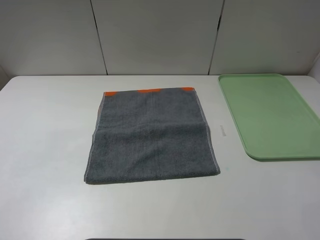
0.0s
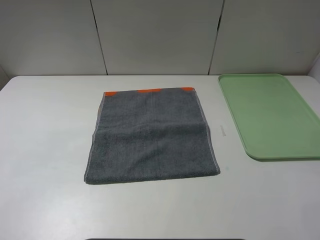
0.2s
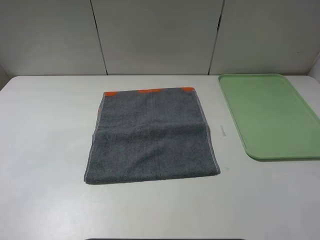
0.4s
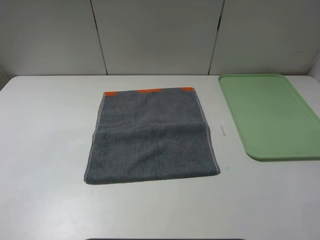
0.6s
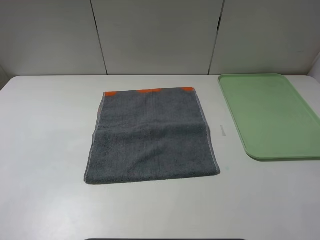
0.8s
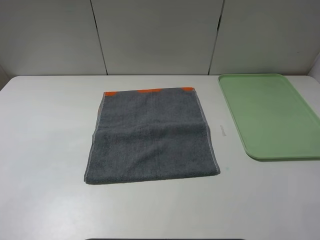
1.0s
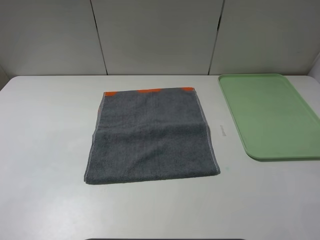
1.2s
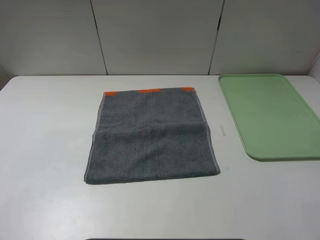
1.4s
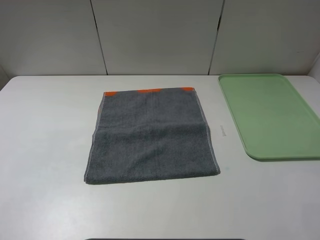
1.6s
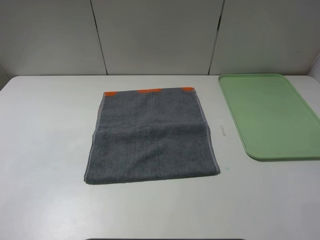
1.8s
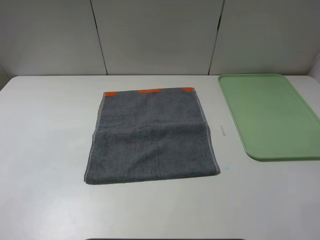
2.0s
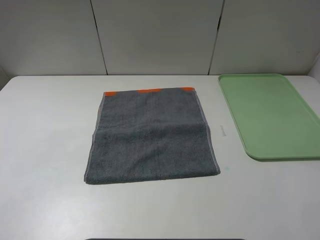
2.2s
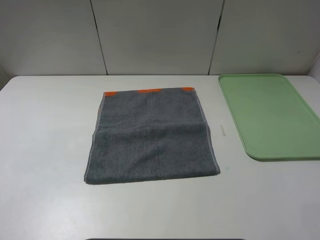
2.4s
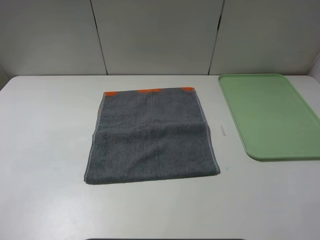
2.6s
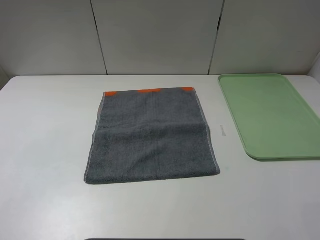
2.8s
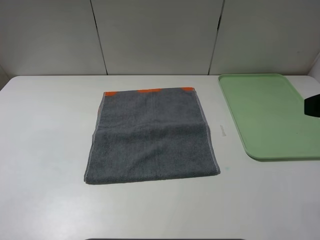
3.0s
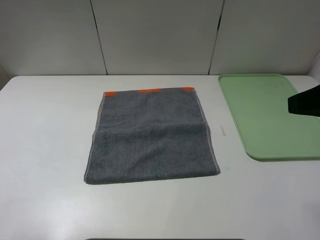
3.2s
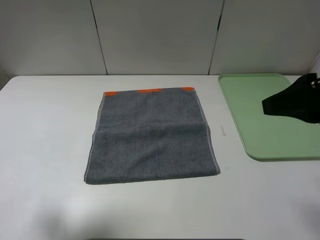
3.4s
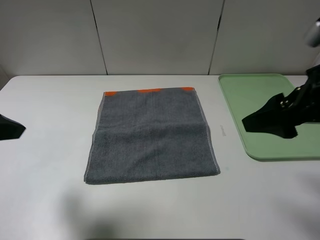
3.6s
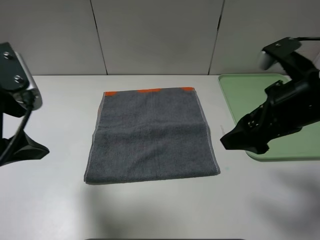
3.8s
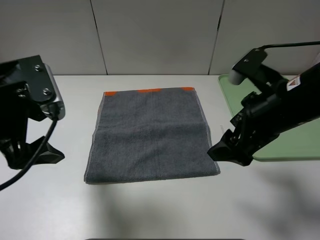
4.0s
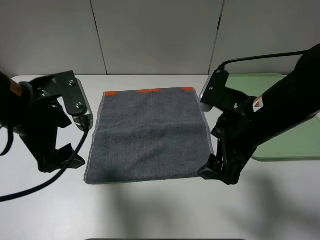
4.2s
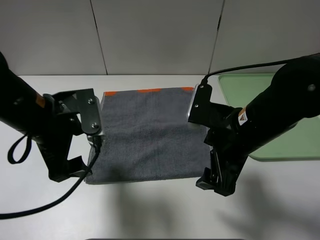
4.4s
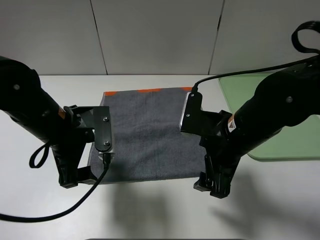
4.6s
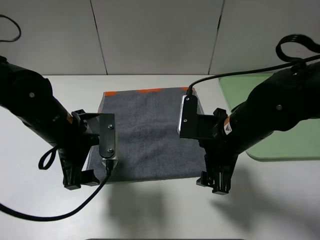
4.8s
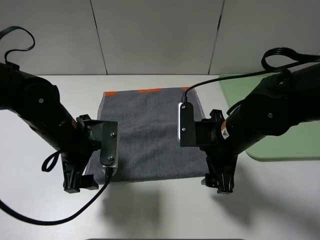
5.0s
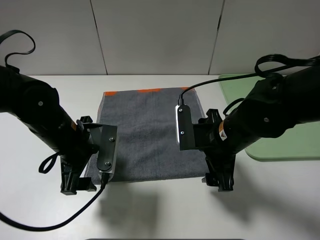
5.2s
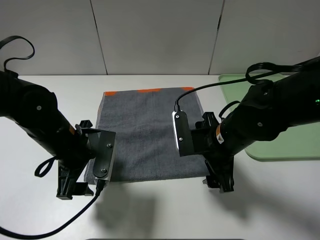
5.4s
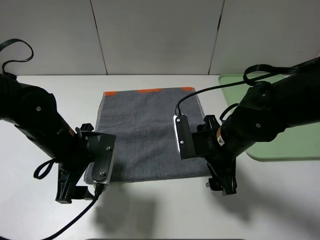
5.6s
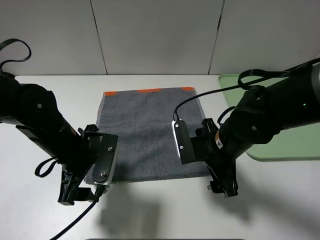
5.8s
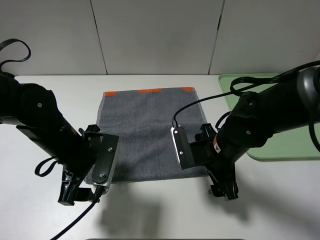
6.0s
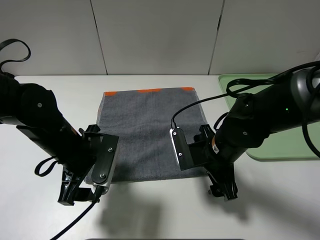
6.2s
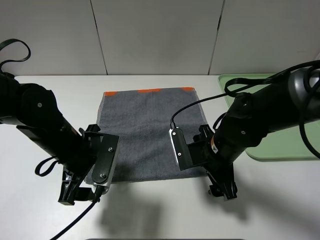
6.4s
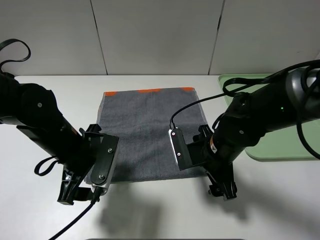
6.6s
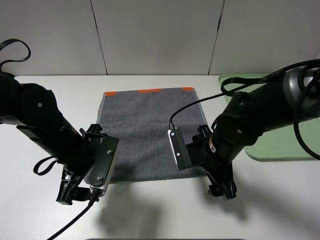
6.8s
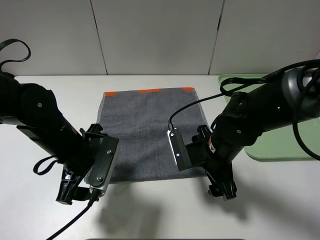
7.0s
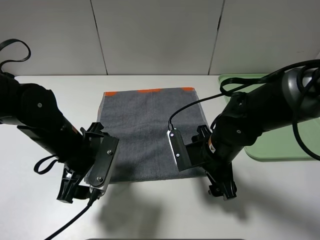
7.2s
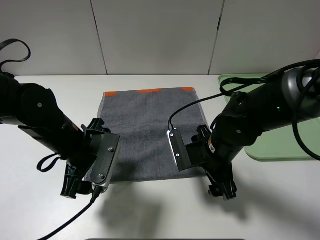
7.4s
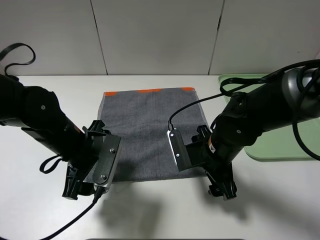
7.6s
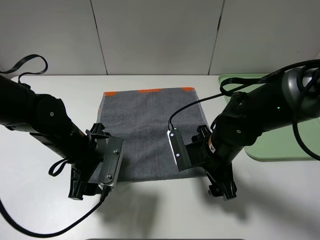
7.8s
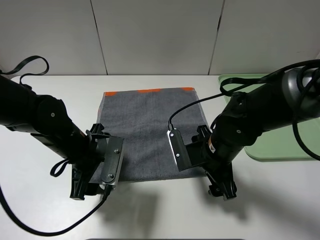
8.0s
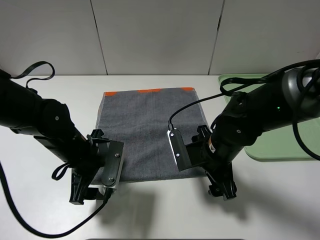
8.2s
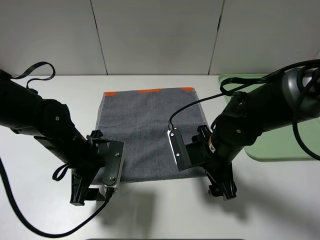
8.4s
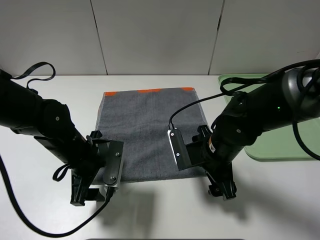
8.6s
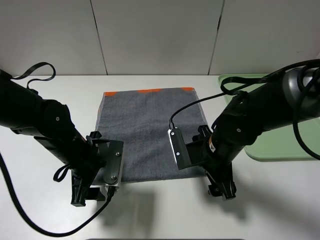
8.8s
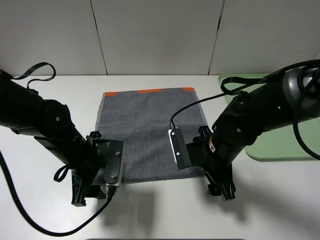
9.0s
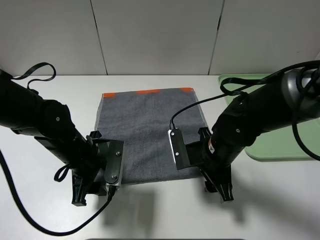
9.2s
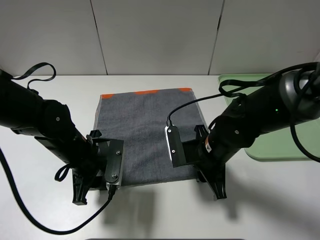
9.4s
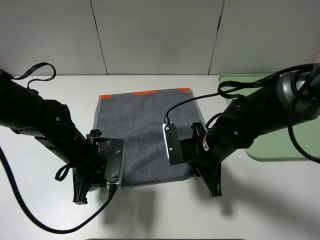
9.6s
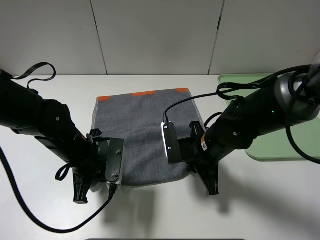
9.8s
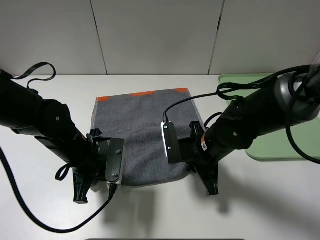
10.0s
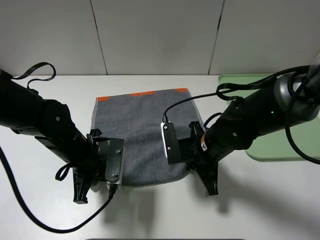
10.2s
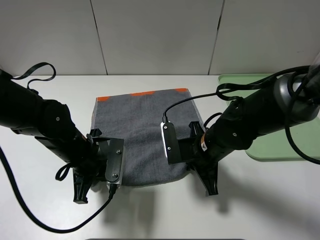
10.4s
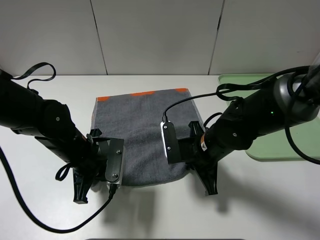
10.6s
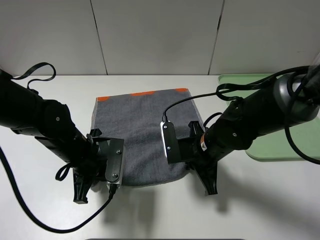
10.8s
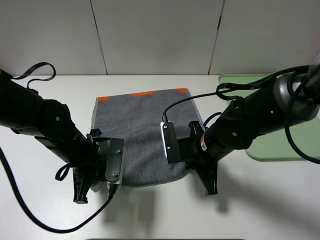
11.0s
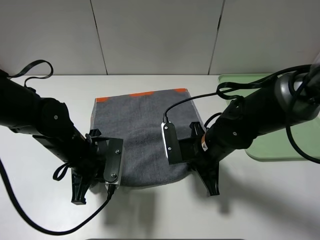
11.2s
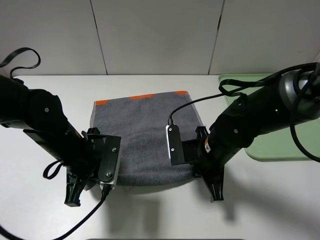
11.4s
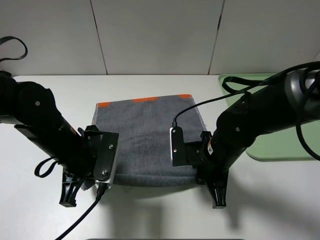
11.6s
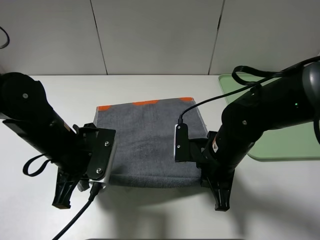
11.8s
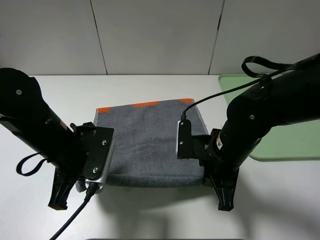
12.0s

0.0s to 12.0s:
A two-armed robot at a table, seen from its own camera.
0.0s to 1.6s: Both grippers stay put.
3.0s to 4.4s: The right gripper moves to the left, downward and forward, approximately 20 cm. Meanwhile the left gripper shifts approximately 25 cm forward, to the right and downward.
4.4s to 6.0s: Both grippers travel together downward, about 10 cm.
6.0s to 9.0s: The grippers stay close to where they were, moving slightly.
9.0s to 10.4s: The left gripper closes its fingers. The right gripper closes its fingers.
10.4s to 12.0s: The right gripper ends up approximately 5 cm from where it was. Meanwhile the left gripper goes some 5 cm upward.

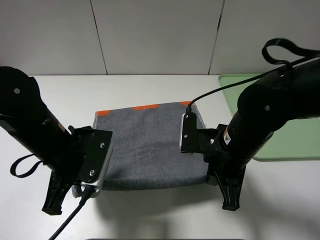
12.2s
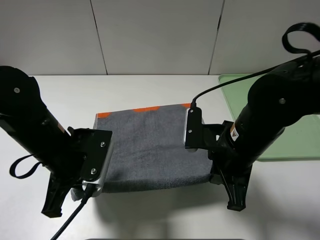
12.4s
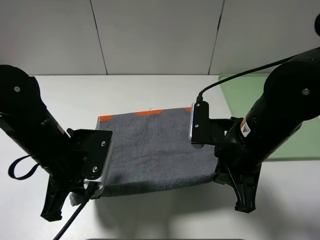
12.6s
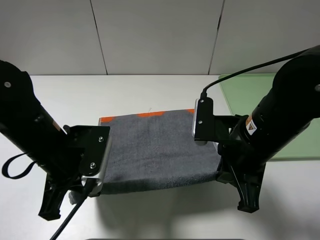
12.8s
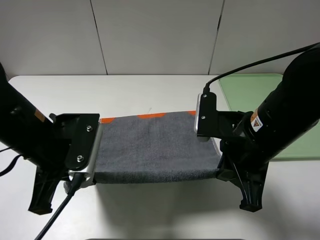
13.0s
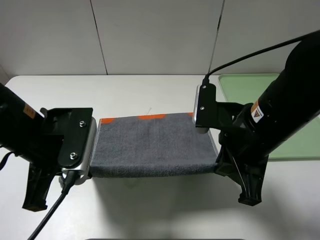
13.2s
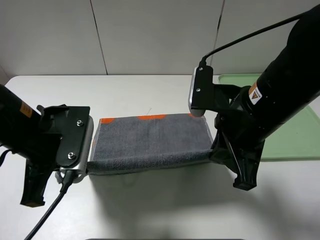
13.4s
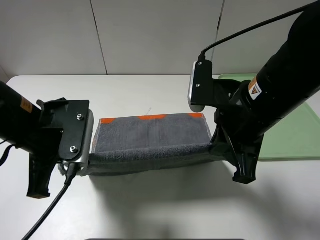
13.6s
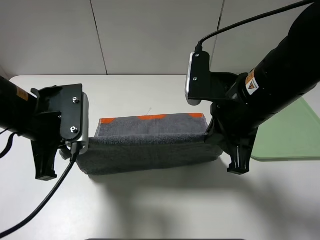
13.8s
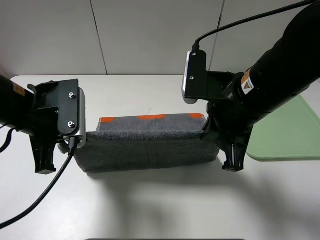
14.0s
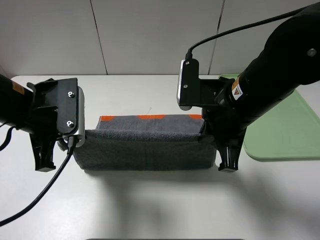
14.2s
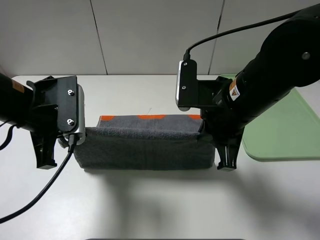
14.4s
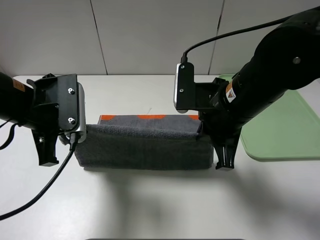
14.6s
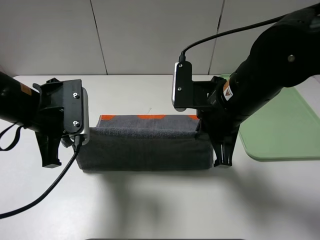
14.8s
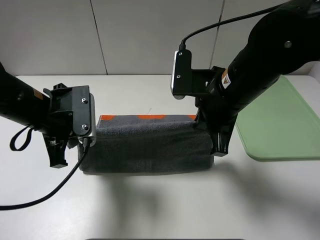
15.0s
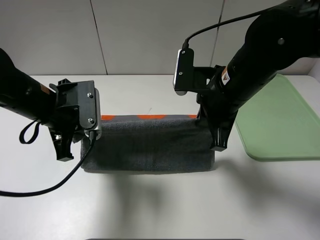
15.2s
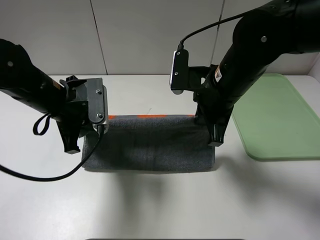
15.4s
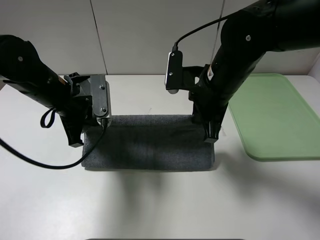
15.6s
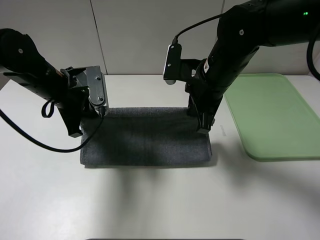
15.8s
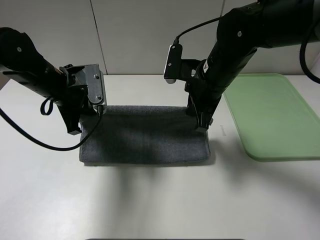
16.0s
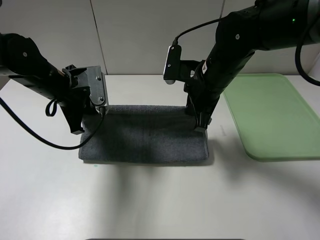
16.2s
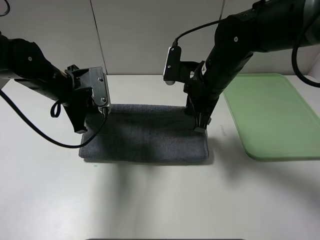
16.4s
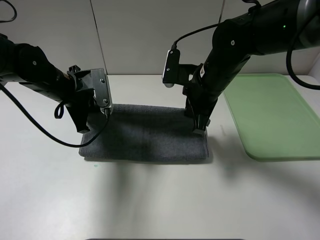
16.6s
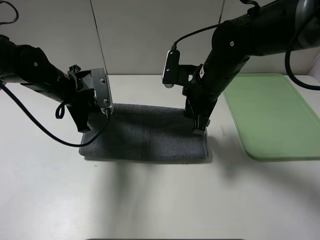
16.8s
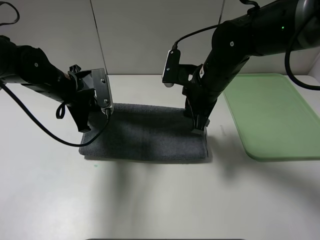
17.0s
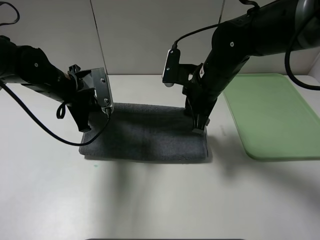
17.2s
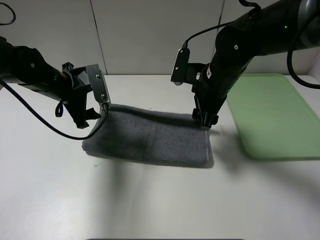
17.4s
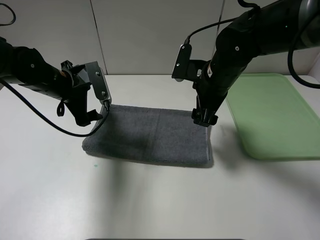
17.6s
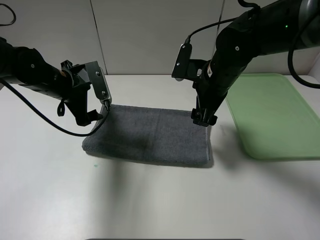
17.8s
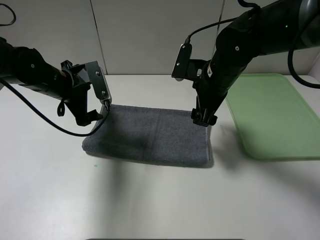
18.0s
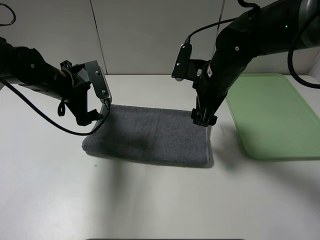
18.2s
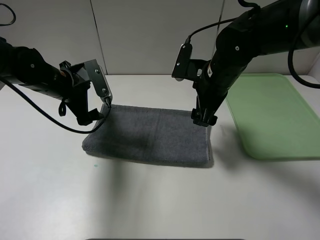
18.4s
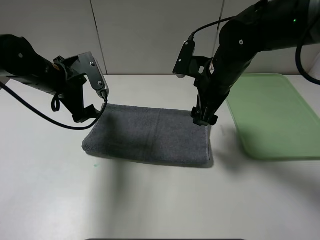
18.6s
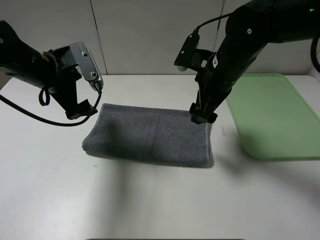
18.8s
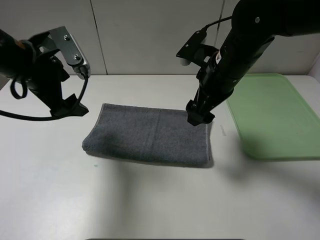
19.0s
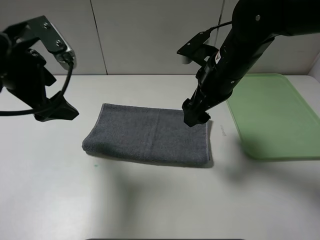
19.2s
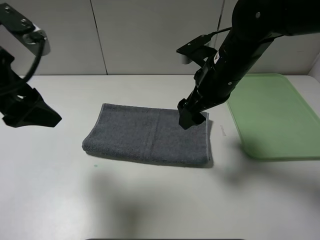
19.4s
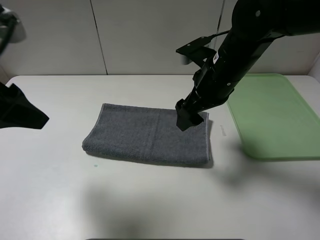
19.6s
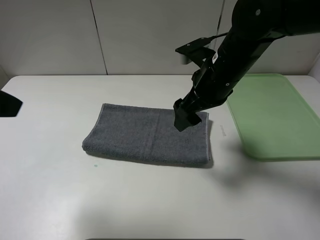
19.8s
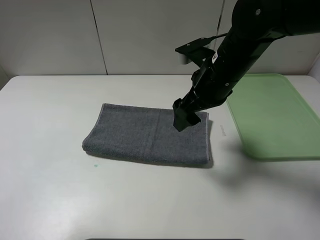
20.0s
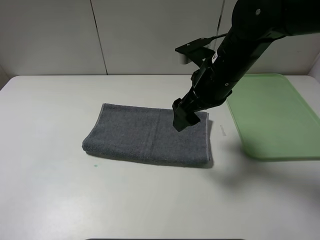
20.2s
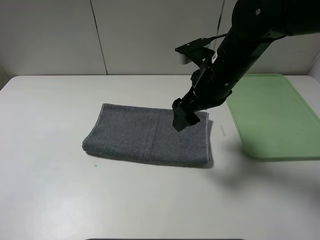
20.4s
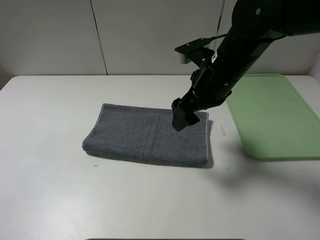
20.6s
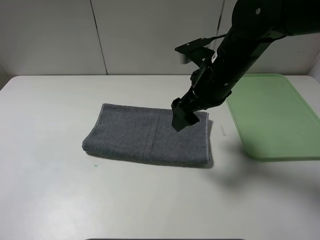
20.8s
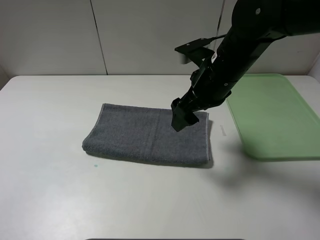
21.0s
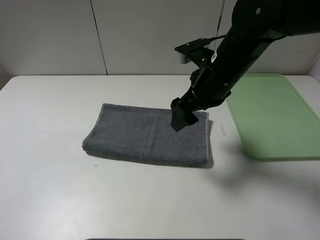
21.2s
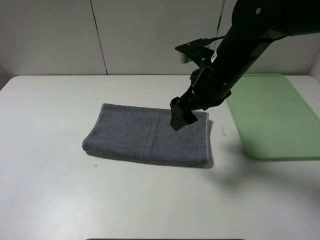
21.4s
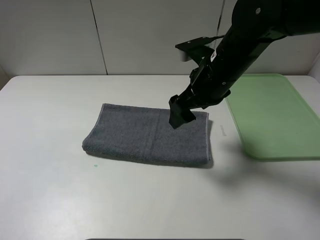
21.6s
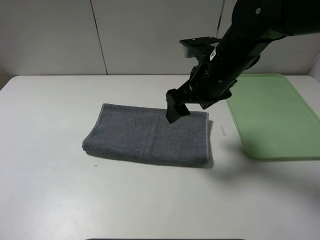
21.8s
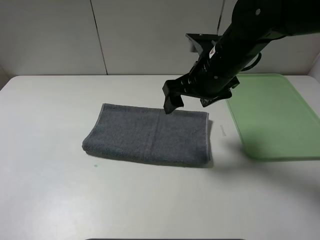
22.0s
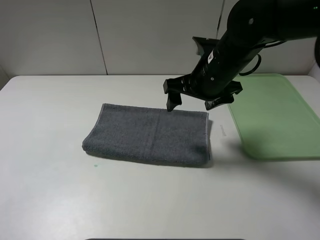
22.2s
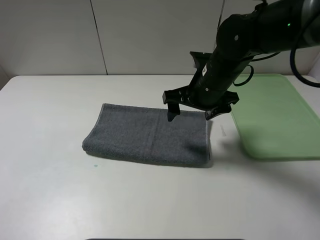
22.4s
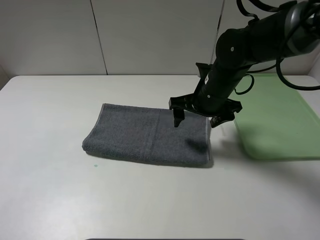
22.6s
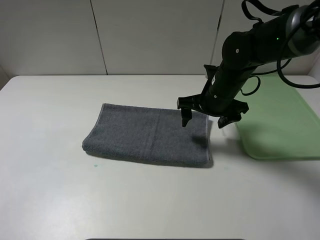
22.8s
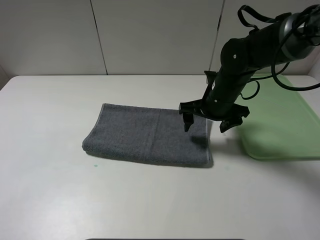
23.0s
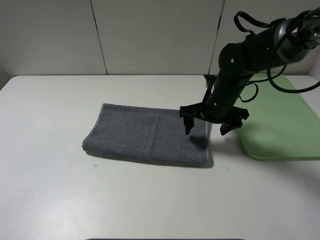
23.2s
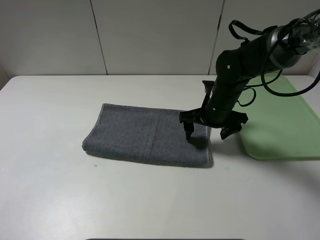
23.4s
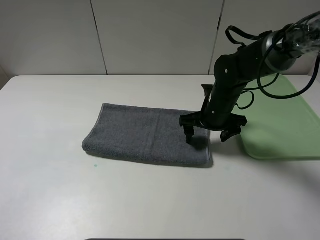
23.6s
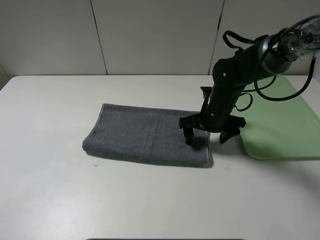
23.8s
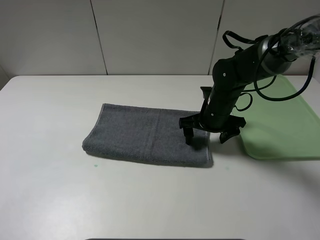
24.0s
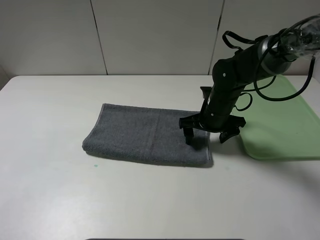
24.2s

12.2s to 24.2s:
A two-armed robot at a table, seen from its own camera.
Step, 12.2s to 17.4s: Fold the grey towel upwards.
12.2s to 13.8s: The left gripper goes approximately 5 cm upward; the right gripper moves upward, about 10 cm.
13.8s to 15.2s: The right gripper changes place by roughly 5 cm, while the left gripper ends up approximately 5 cm from where it was.
15.2s to 16.6s: Both grippers move forward, some 5 cm.
16.6s to 18.2s: The right gripper opens up, while the left gripper opens up.
18.2s to 19.8s: The left gripper travels backward and upward by some 25 cm.
19.8s to 21.2s: The left gripper shifts roughly 15 cm backward, downward and to the left.
21.2s to 22.6s: The right gripper moves downward, roughly 5 cm.
22.6s to 24.2s: The right gripper goes some 5 cm downward.
